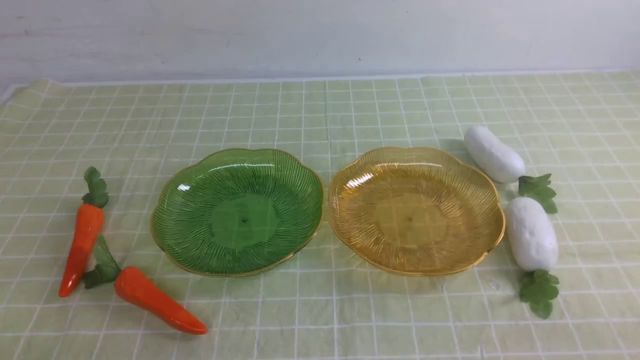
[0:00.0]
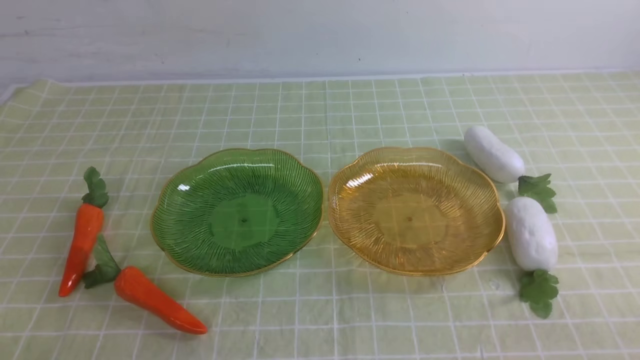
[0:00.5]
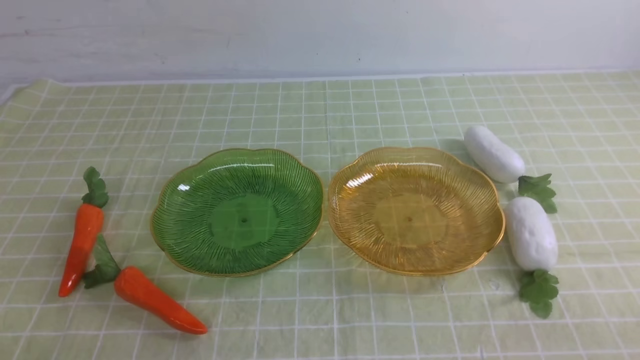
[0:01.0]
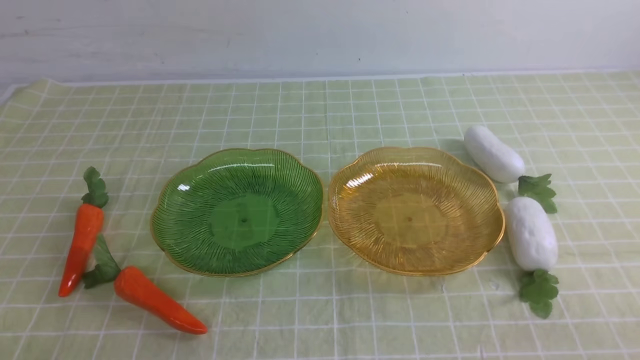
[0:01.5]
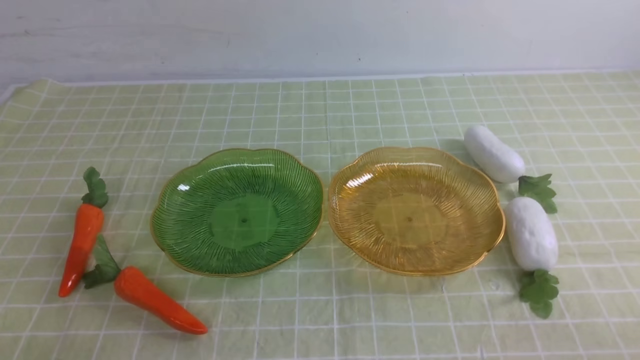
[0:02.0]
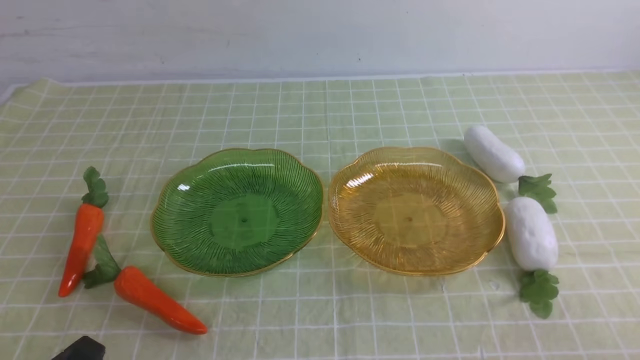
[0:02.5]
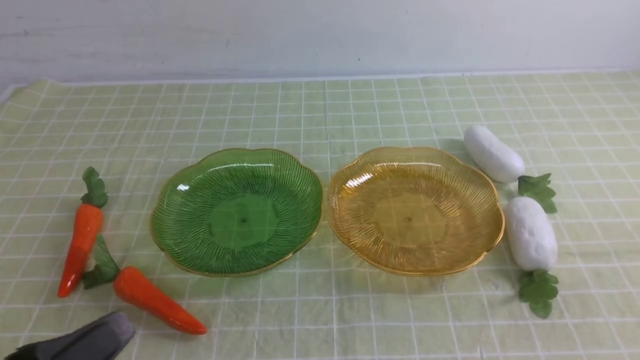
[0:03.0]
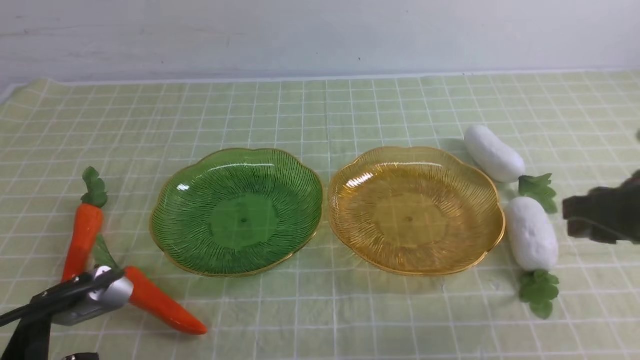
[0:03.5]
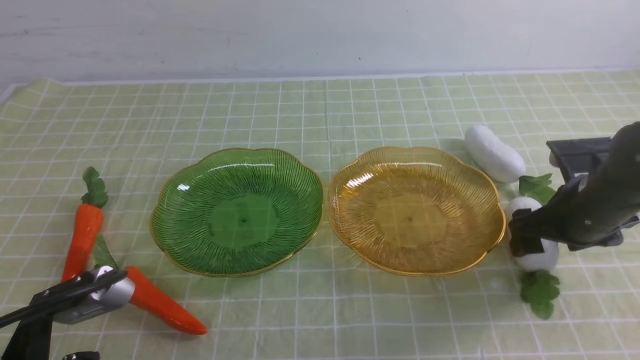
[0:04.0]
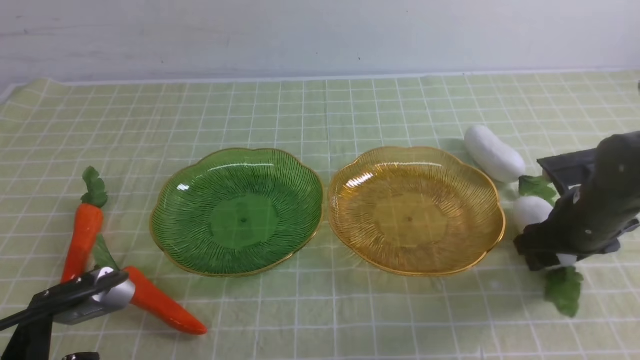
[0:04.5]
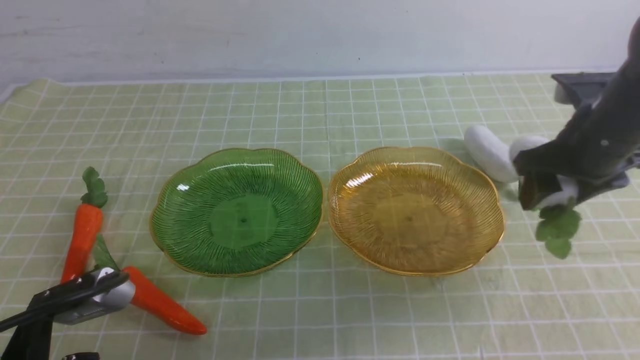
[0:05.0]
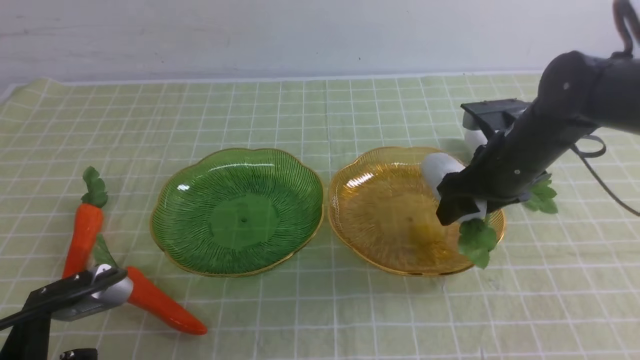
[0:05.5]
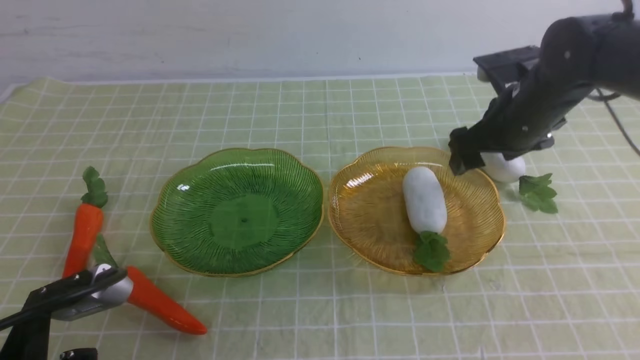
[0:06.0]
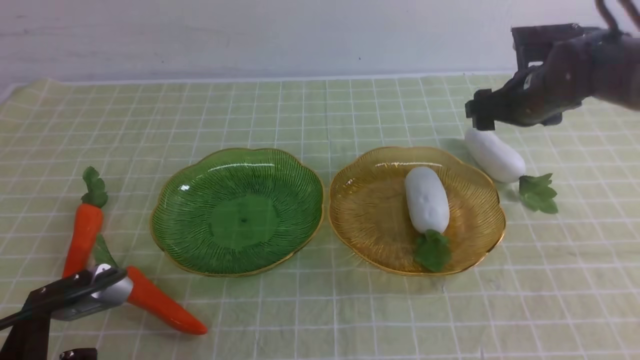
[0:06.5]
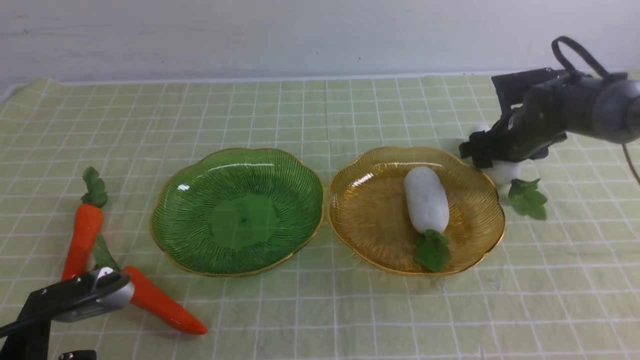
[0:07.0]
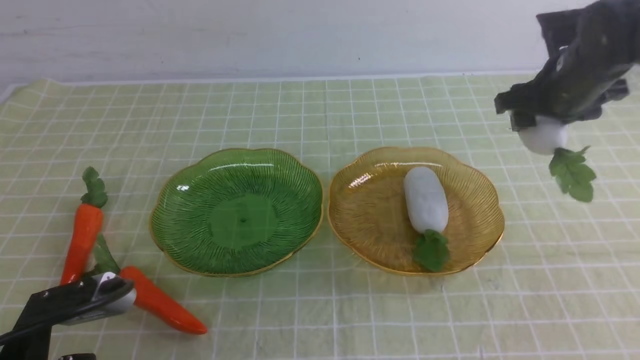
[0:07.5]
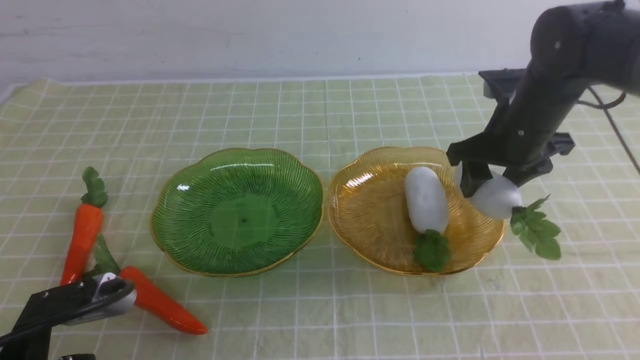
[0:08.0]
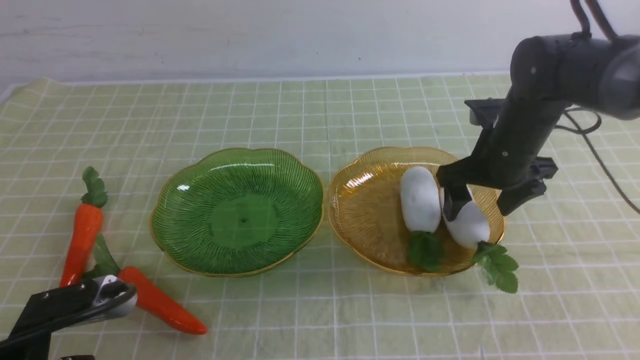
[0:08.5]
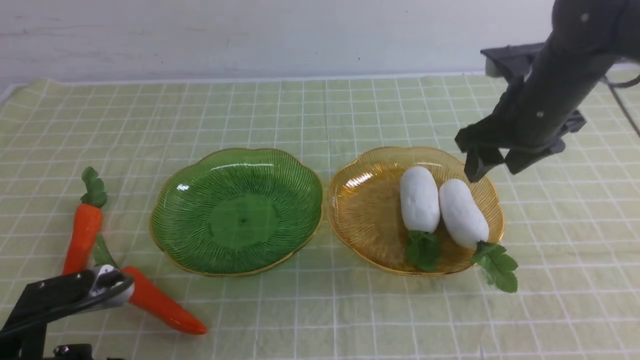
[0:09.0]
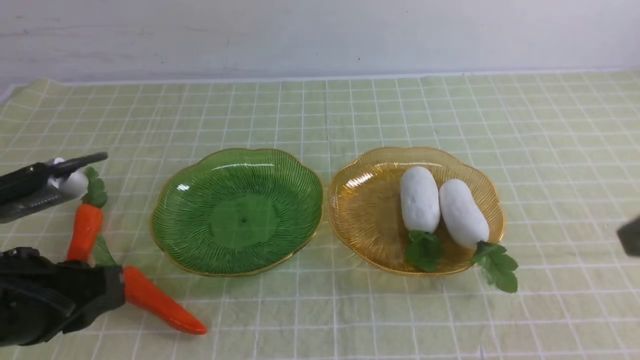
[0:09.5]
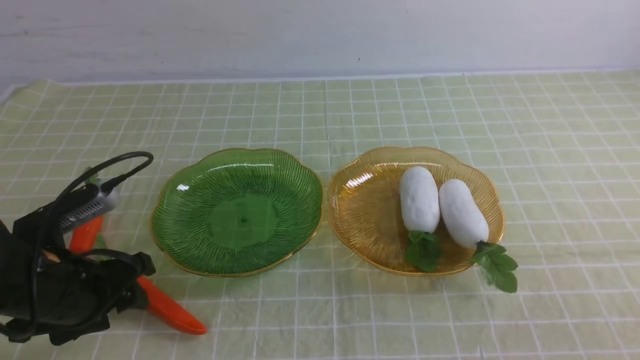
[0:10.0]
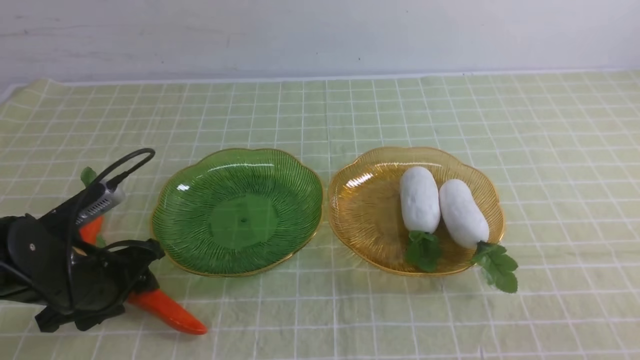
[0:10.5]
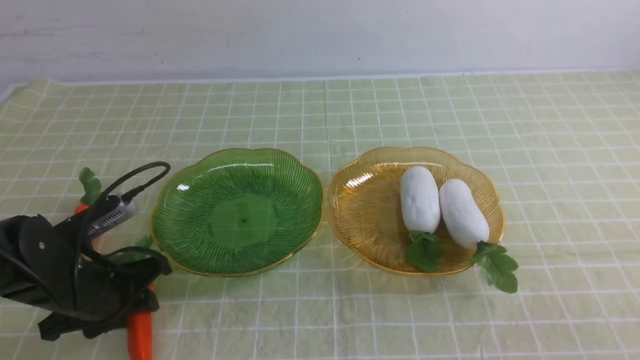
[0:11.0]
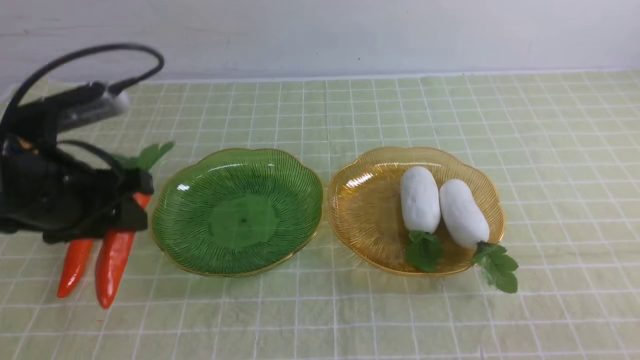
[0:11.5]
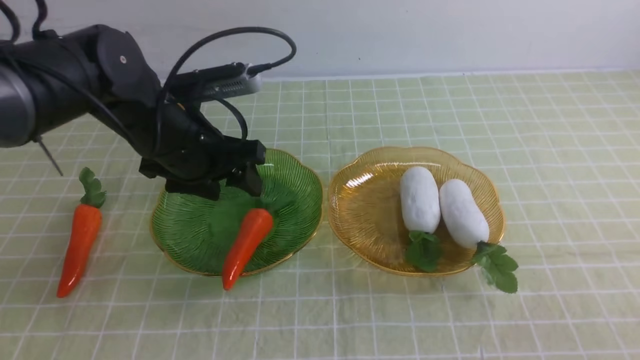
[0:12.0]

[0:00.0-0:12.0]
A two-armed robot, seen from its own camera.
Step, 0:00.0 to 0:08.5: use the right arm to grab a radish and put it into the right plate.
0:02.0 to 0:04.0: The right gripper shifts about 30 cm forward, and opens its fingers. The left gripper heads forward, covering some 5 cm.
0:04.0 to 0:06.0: The right gripper travels forward, upward and to the left by approximately 10 cm.
0:06.0 to 0:08.0: The right gripper reaches roughly 5 cm downward, then returns.
0:08.0 to 0:10.0: The right gripper travels backward by some 35 cm, and closes, while the left gripper is displaced forward by about 10 cm, and opens its fingers.
0:10.0 to 0:12.0: The left gripper moves forward, to the right and upward, about 15 cm.

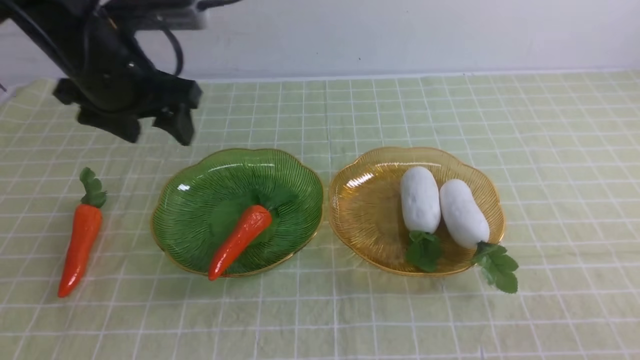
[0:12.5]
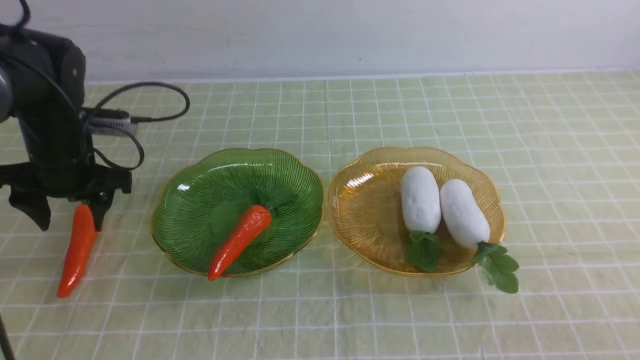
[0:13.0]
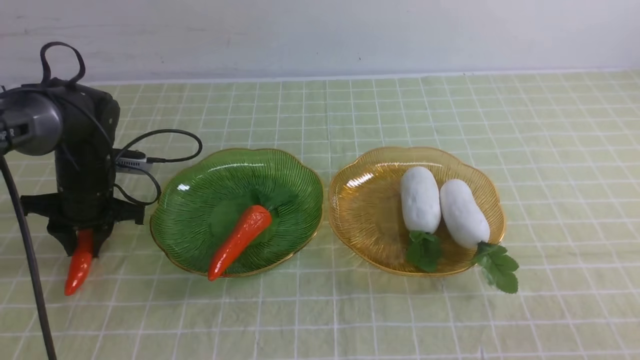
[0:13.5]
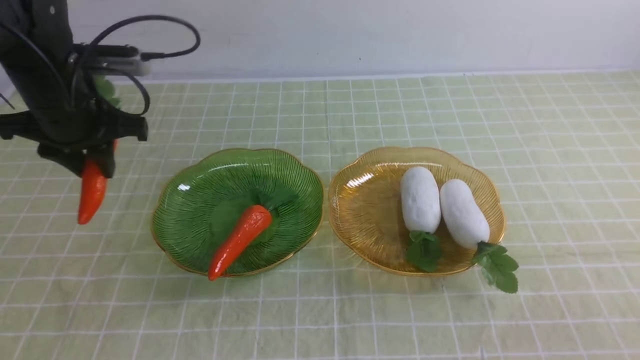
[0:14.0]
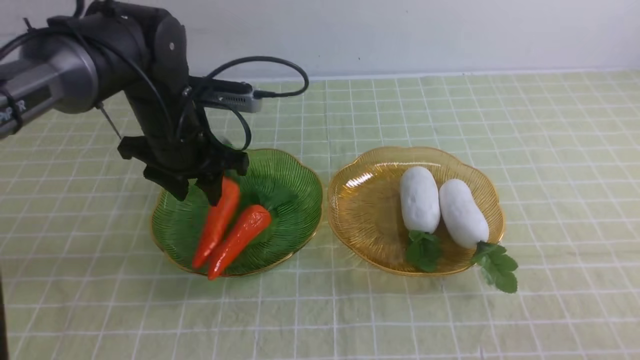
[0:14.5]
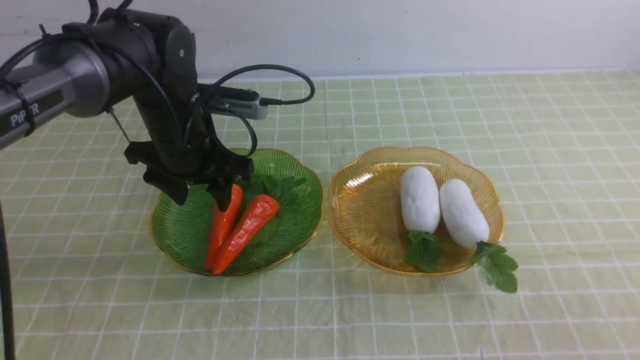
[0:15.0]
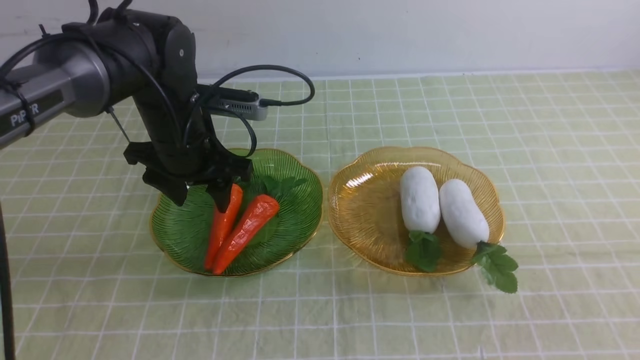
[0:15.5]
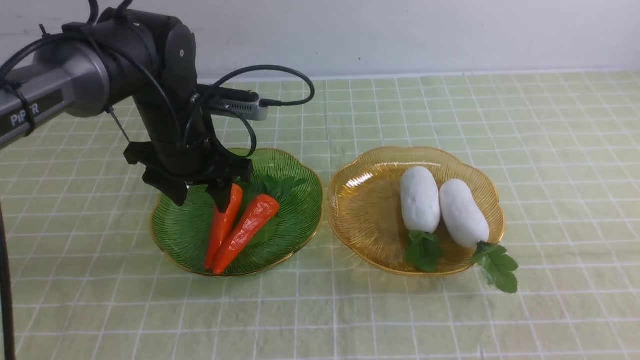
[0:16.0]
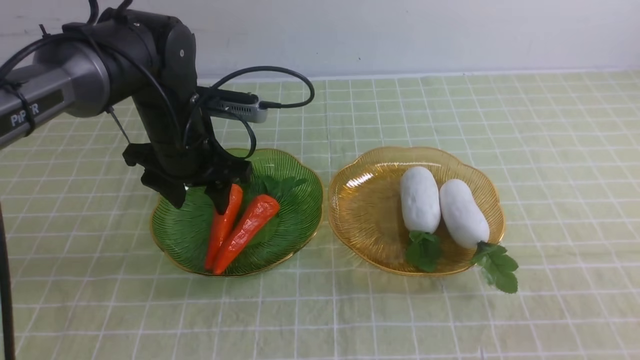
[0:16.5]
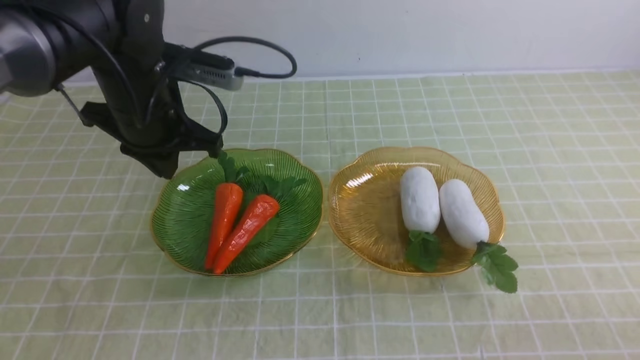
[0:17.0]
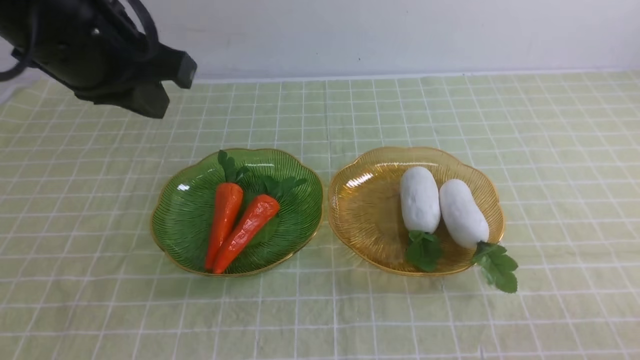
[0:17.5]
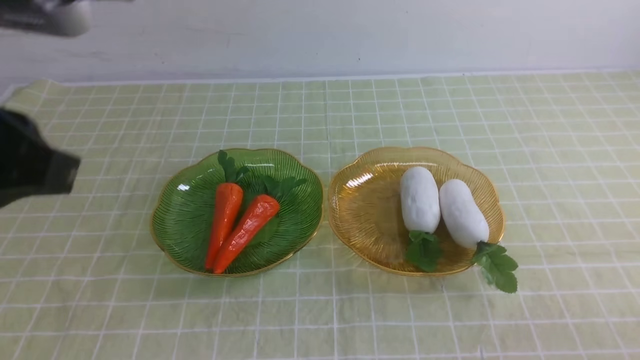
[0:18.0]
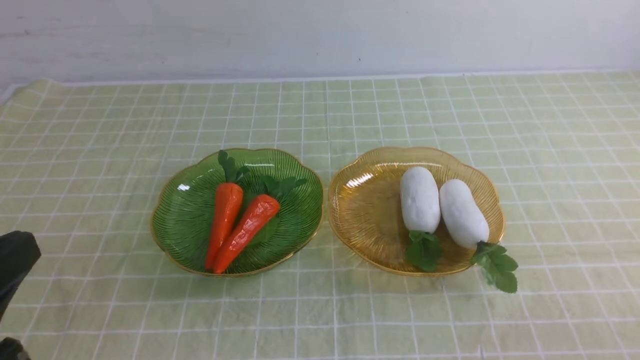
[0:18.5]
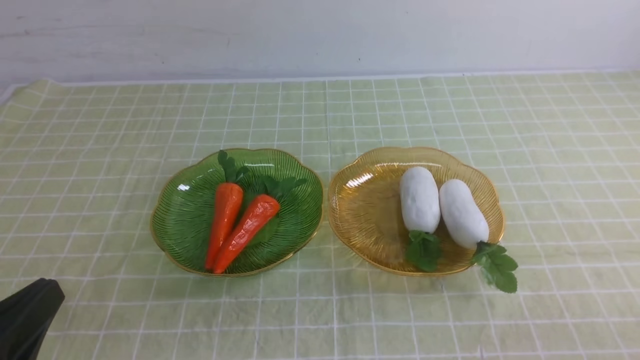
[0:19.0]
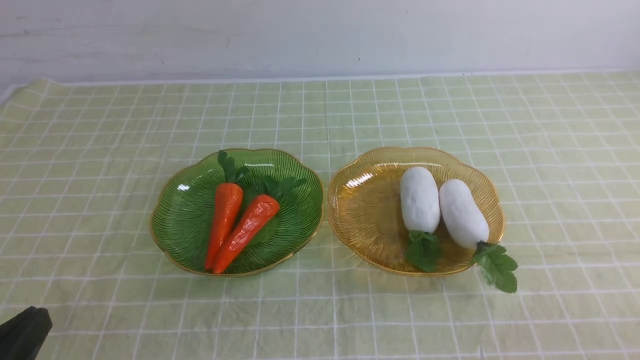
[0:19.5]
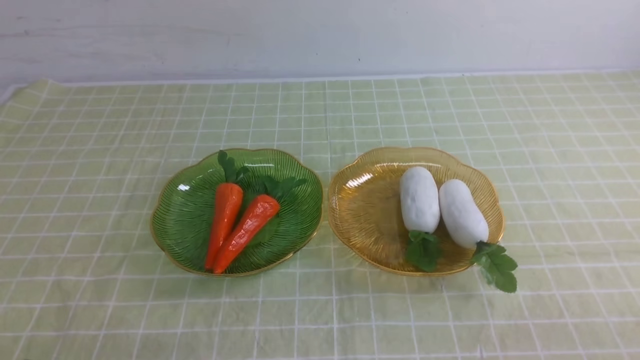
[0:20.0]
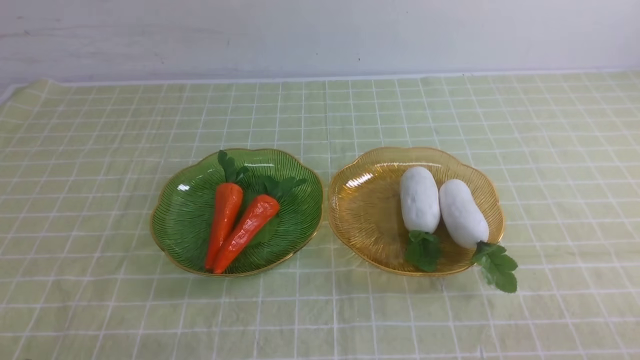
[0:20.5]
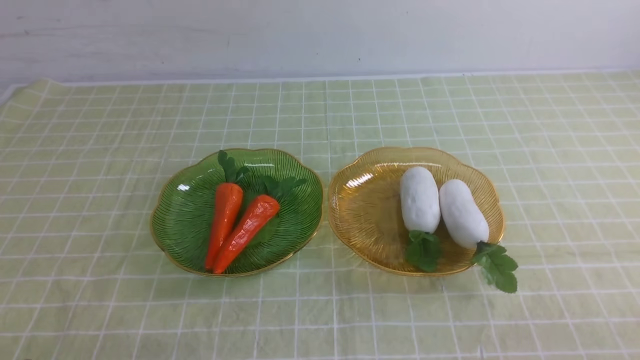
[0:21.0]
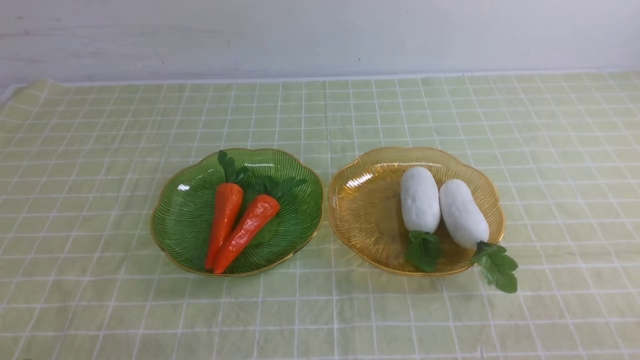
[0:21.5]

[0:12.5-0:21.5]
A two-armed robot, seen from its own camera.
Step, 0:12.5 to 0:15.5: use the left arm to grab a carrot and put it into the left plate.
0:12.5 to 0:14.5: The left gripper heads downward, covering roughly 5 cm.
0:14.5 to 0:17.0: The right gripper heads downward, covering some 10 cm, while the left gripper heads upward, covering some 5 cm, and closes.
0:17.0 to 0:19.5: The left gripper moves backward, some 30 cm.
